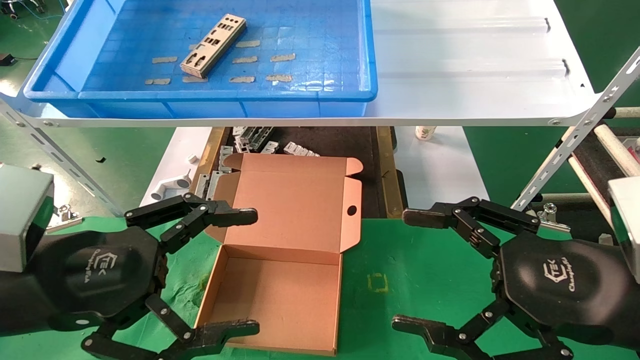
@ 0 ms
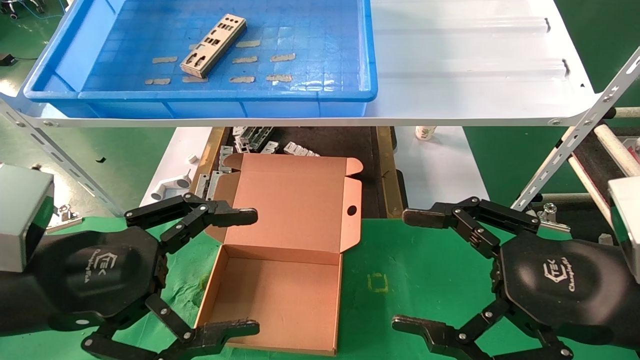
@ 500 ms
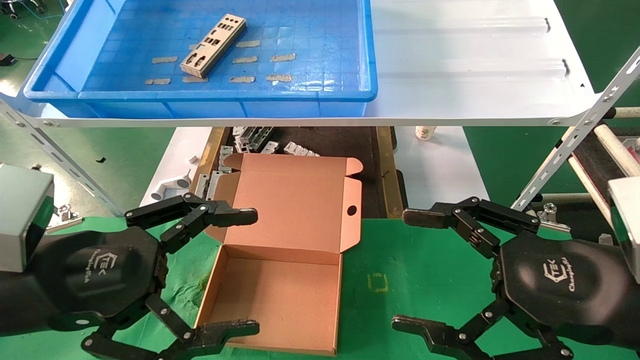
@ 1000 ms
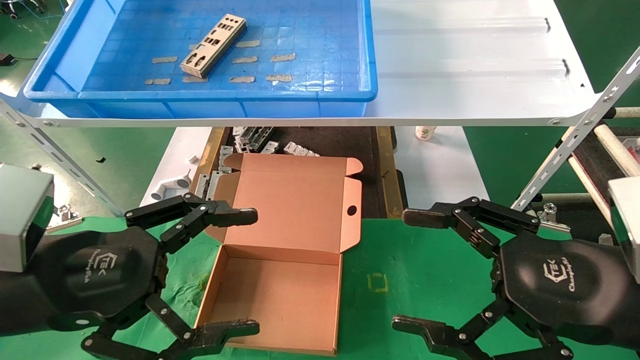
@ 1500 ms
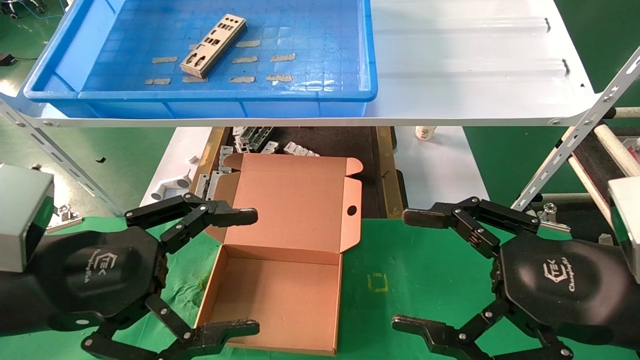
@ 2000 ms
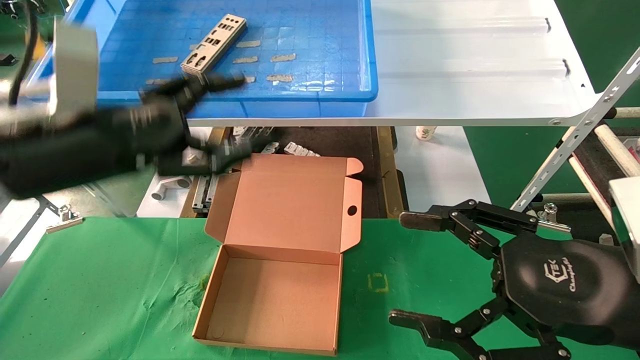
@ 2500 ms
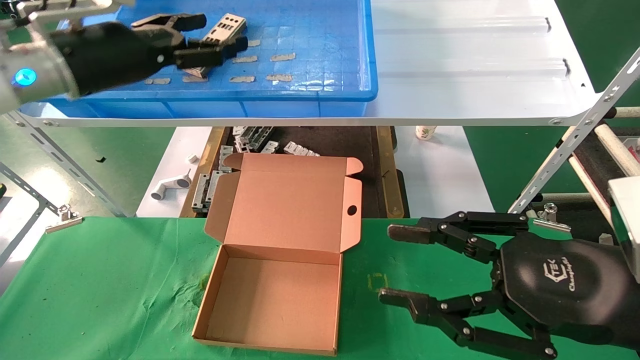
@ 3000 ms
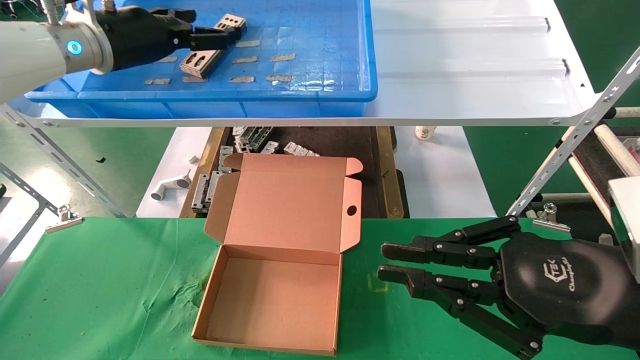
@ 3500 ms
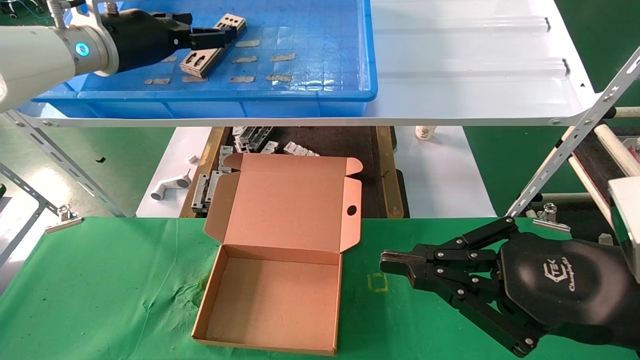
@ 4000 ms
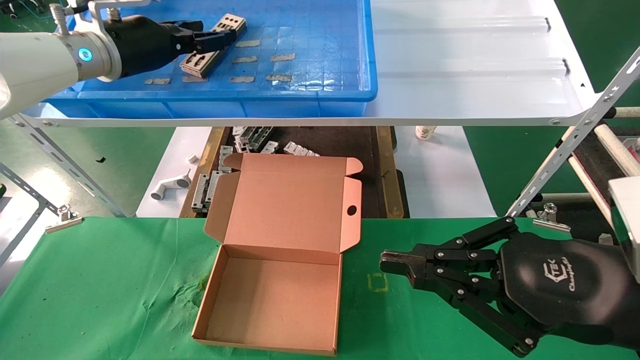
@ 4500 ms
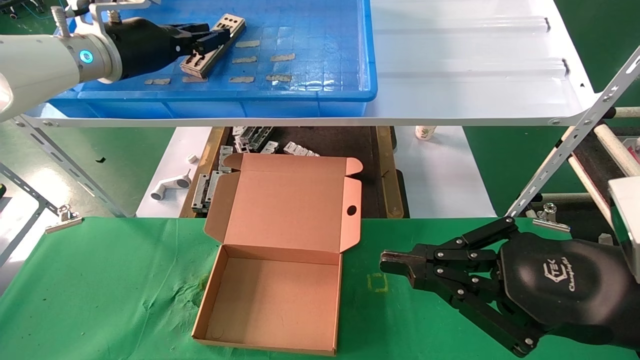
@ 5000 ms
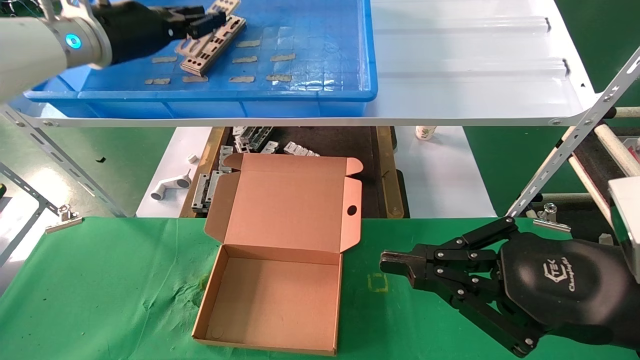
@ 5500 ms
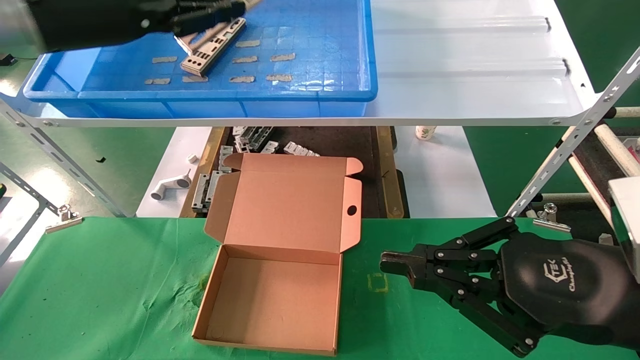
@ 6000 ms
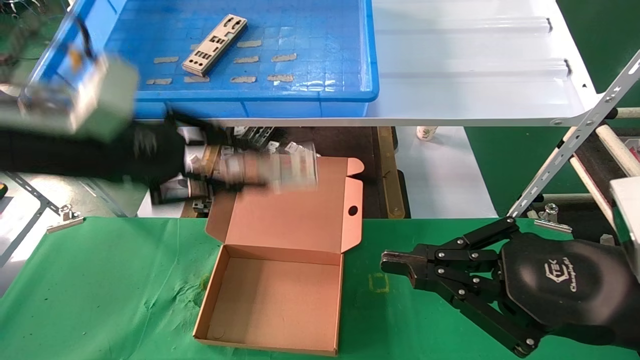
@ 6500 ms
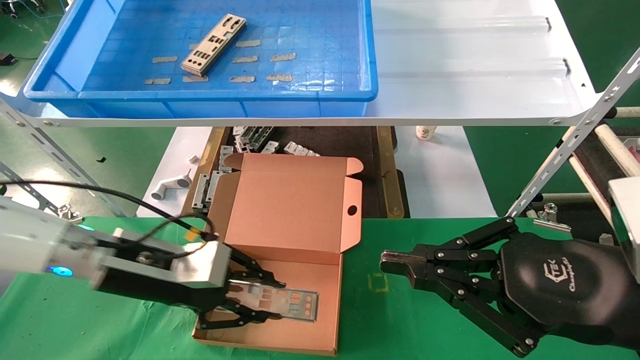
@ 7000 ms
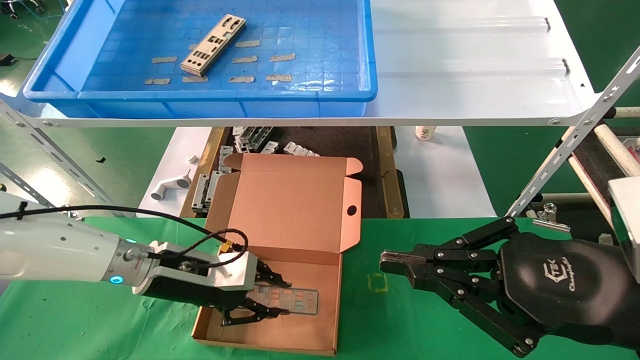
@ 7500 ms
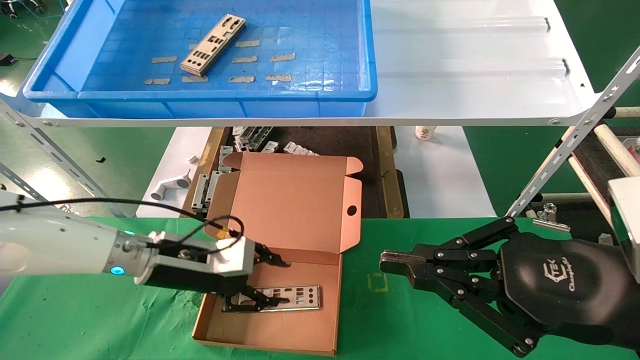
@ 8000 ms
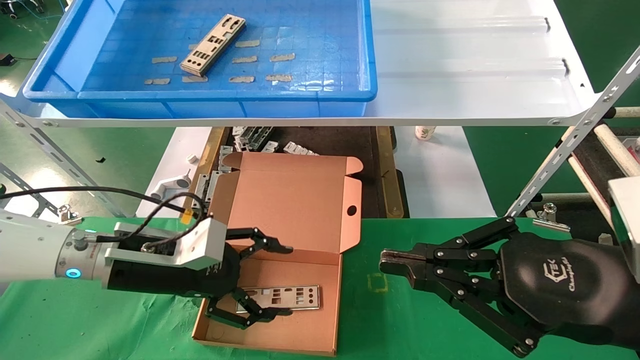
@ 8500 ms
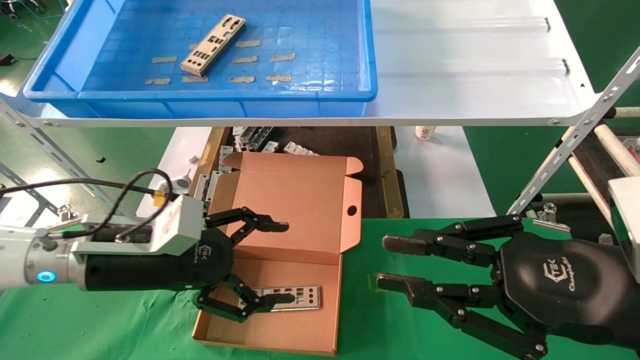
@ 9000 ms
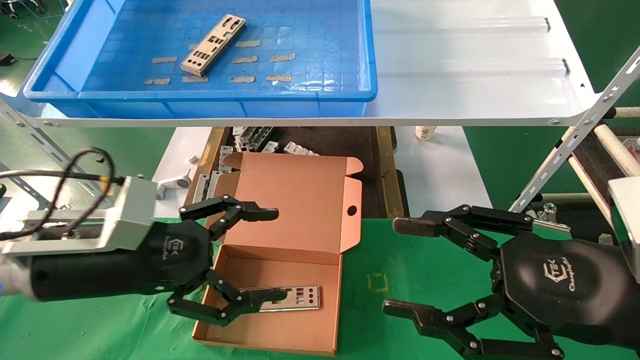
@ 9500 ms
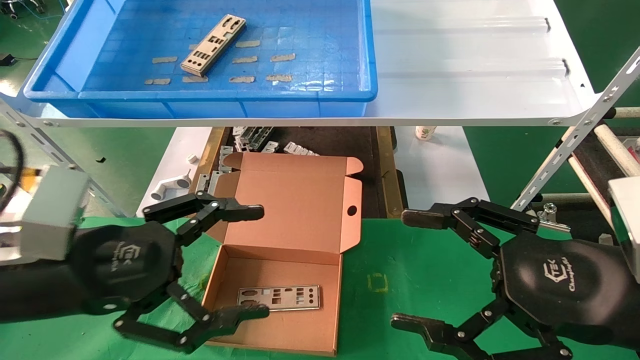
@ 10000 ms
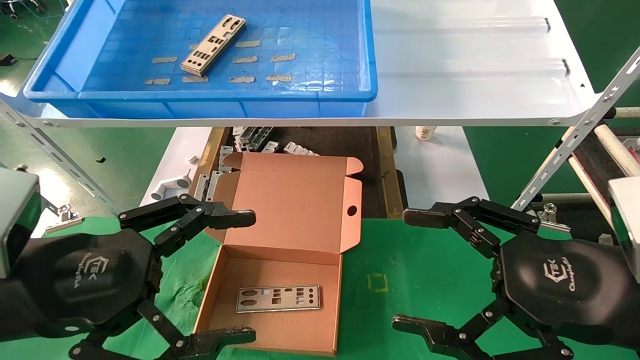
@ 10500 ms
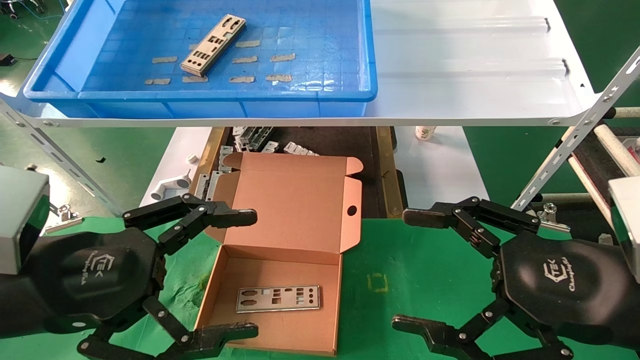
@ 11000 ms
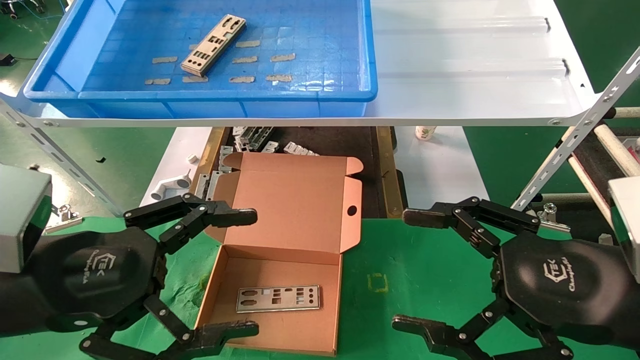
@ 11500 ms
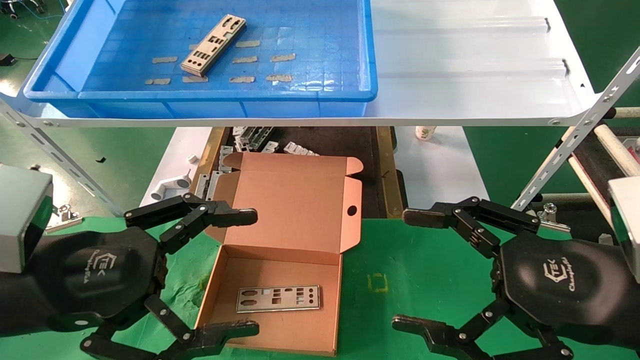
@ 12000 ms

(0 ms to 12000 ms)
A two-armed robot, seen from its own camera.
Task of the whole recording: pick up the parts on the tray and put them in the cardboard box.
Step, 2500 ms - 5500 ms: Pick up the IO bracket from the container box.
Step, 6000 ms - 7500 ms: Place the IO bracket into the ingredient slot.
0 ms - 2000 ms: The two grippers keep their place.
2000 ms - 4000 ms: The left gripper is displaced forward and upward by about 30 cm. The right gripper closes.
4000 ms - 6000 ms: The left gripper shifts some 10 cm backward, and closes.
6000 ms - 8000 ms: The left gripper goes approximately 30 cm downward.
8000 ms - 10000 ms: The right gripper opens up, while the left gripper heads backward and upward, covering approximately 20 cm, and opens up.
10000 ms - 12000 ms: The grippers make only small movements.

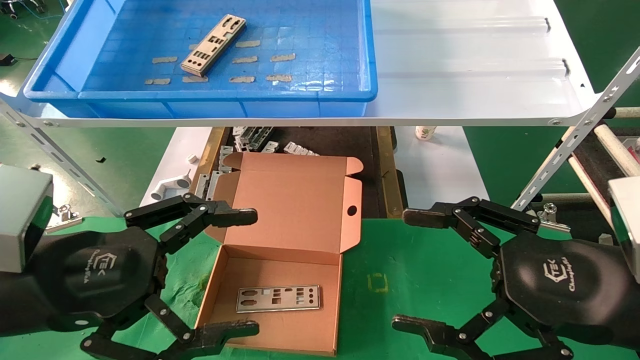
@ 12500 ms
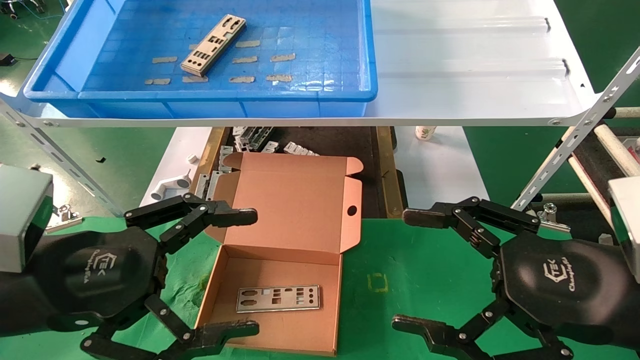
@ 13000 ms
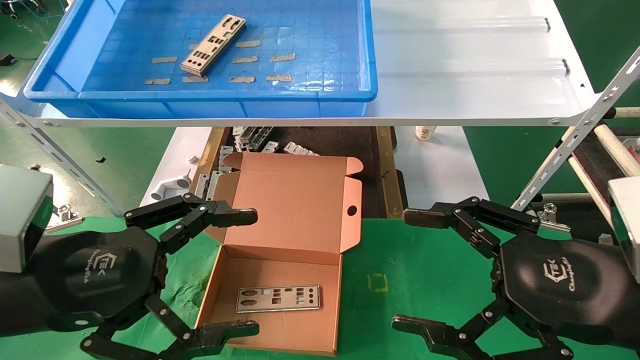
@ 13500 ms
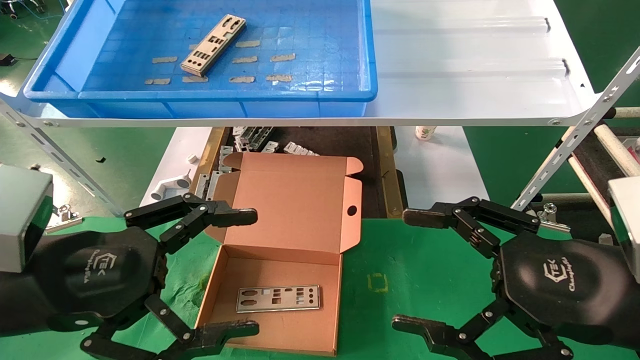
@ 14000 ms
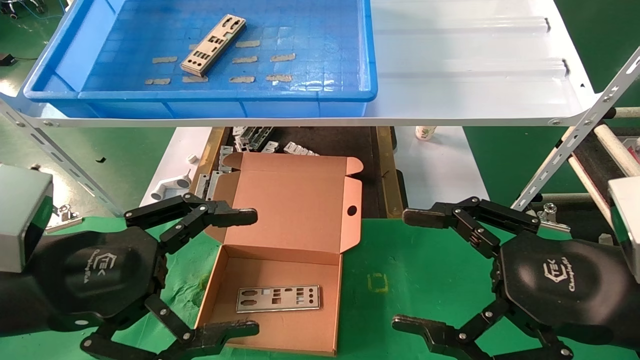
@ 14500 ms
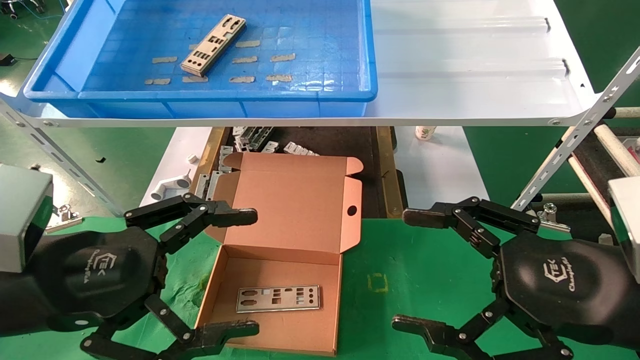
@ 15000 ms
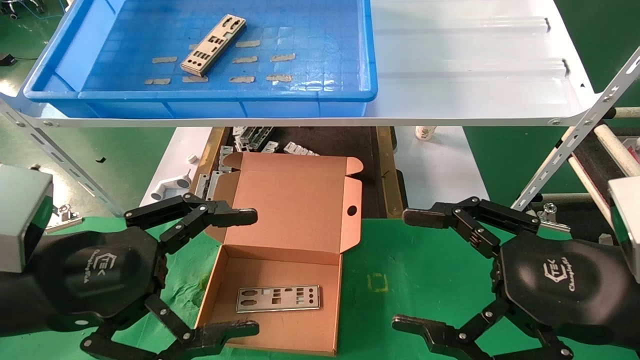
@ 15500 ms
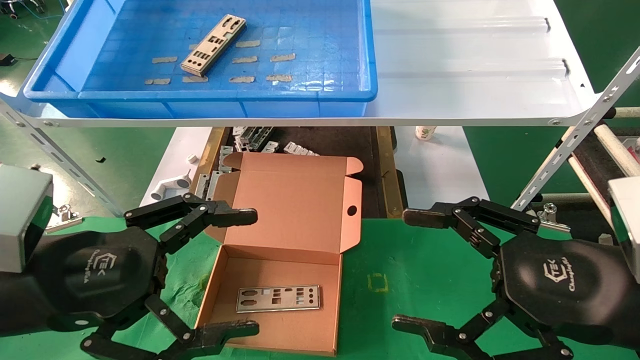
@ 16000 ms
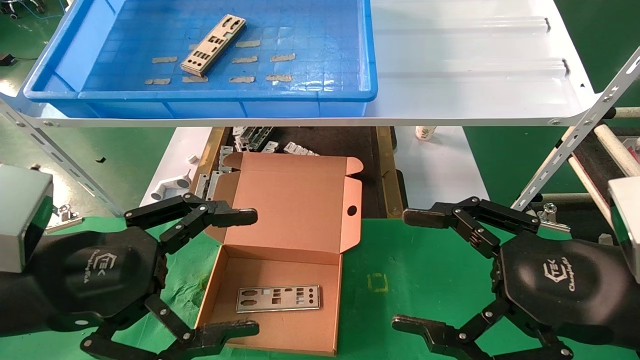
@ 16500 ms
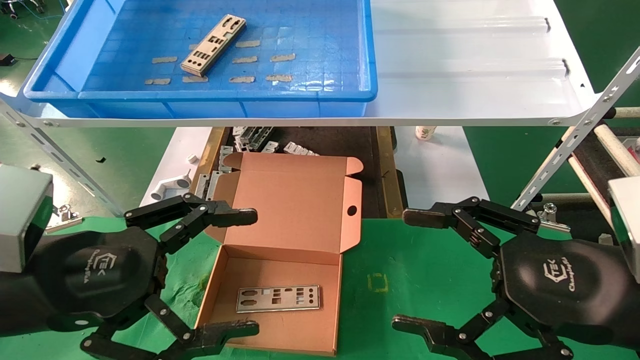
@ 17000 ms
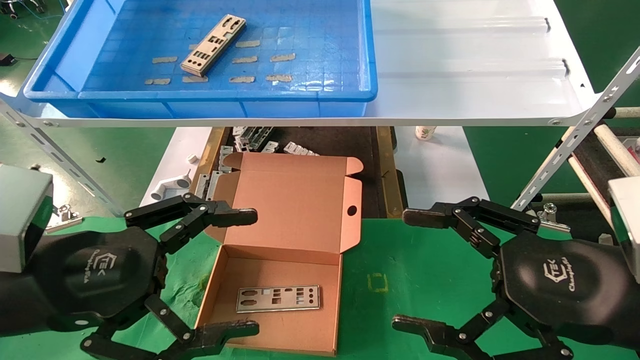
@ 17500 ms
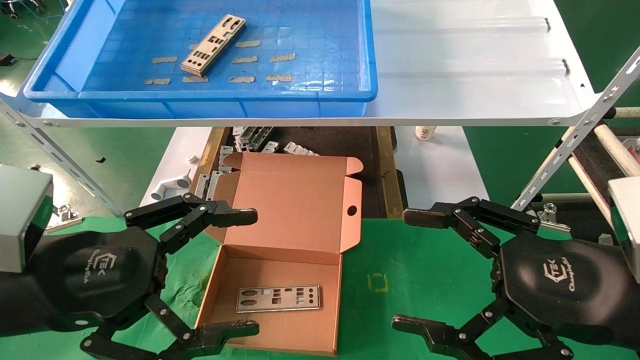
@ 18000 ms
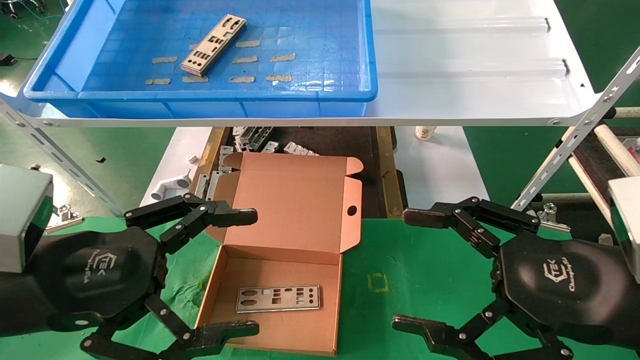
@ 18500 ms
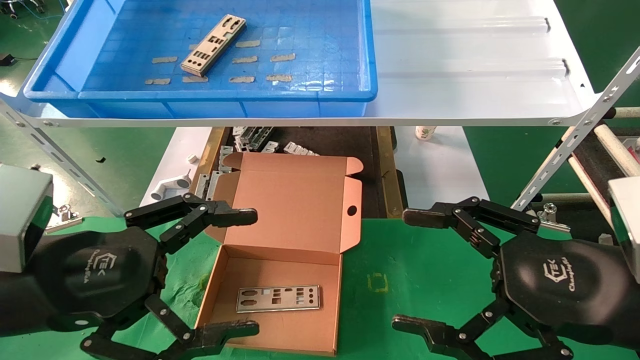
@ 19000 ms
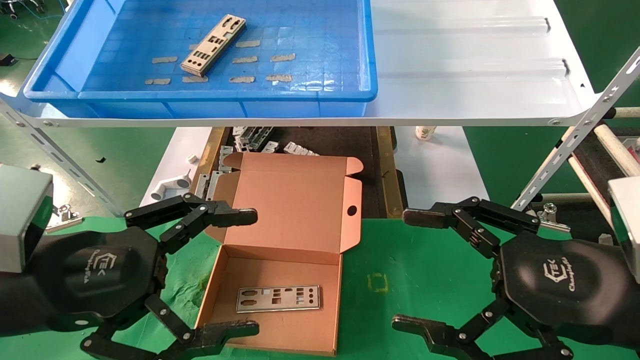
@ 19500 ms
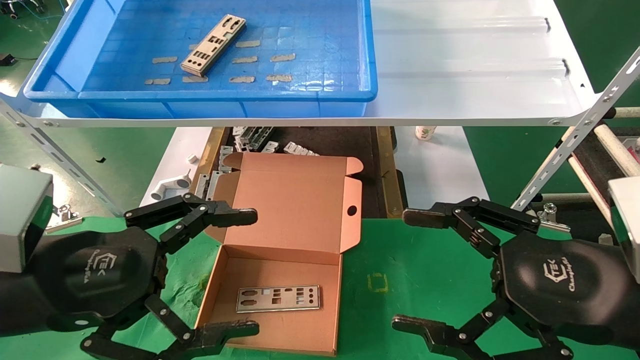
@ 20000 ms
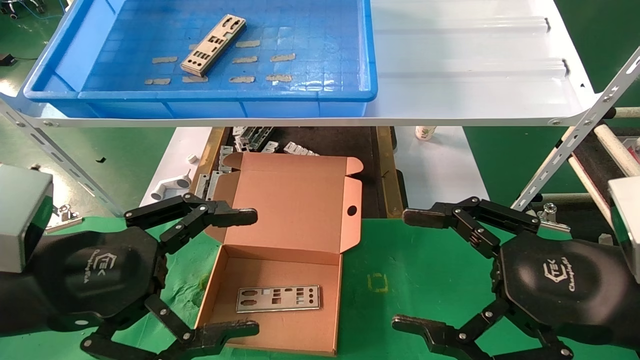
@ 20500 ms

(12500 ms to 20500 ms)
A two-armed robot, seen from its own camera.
Task of the whole recording: pick up the parts on the tray and put them in the cardboard box.
12500 ms - 20500 ms: Both grippers stay put.
